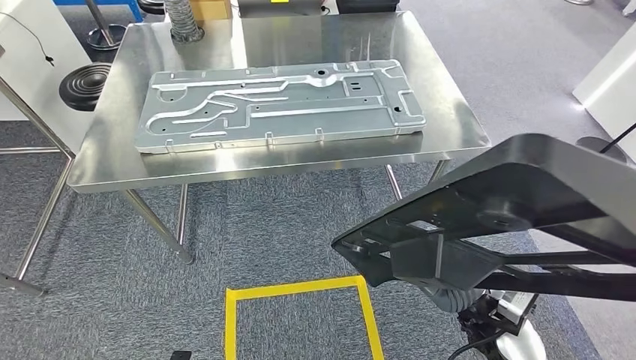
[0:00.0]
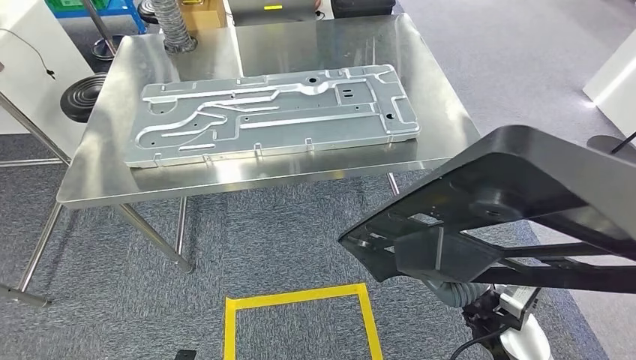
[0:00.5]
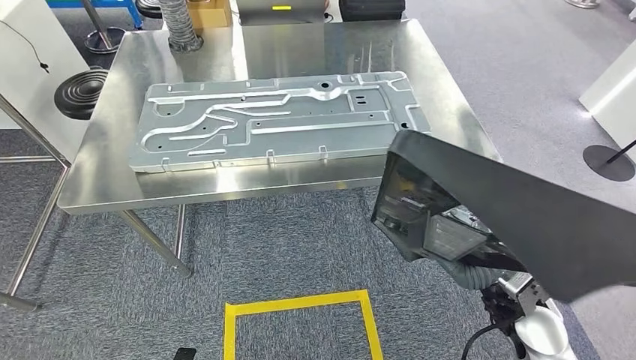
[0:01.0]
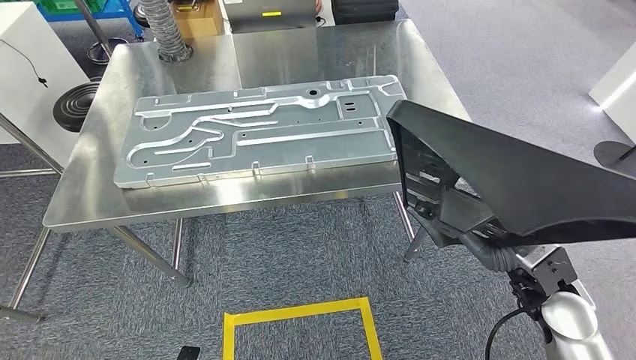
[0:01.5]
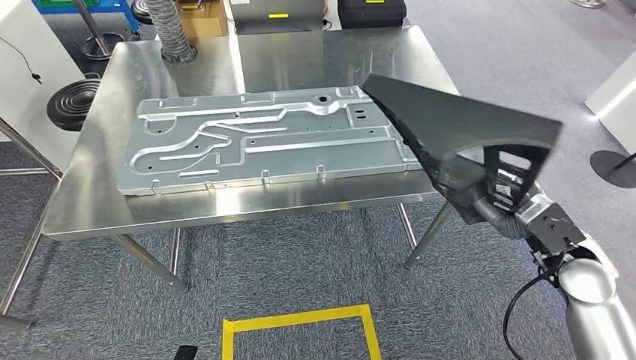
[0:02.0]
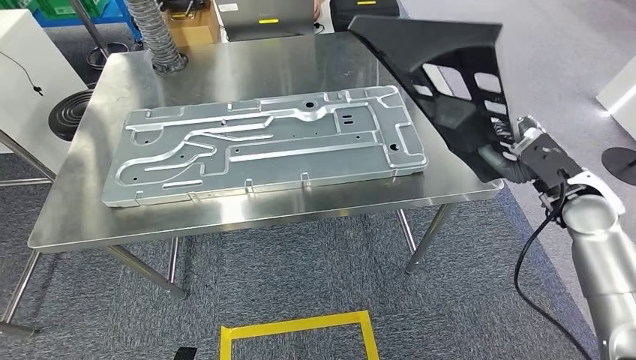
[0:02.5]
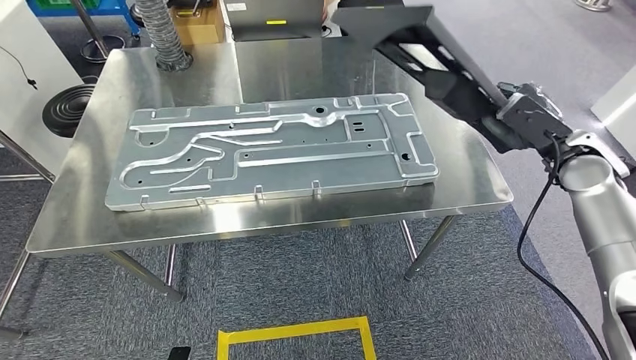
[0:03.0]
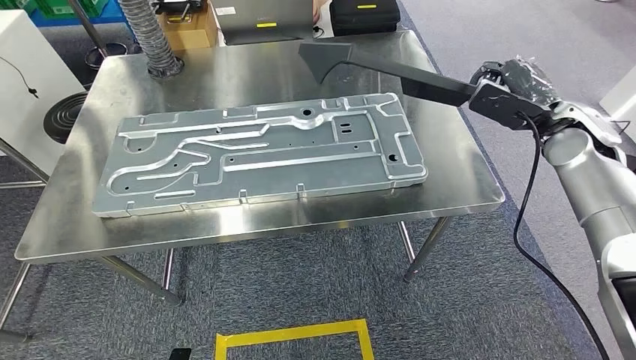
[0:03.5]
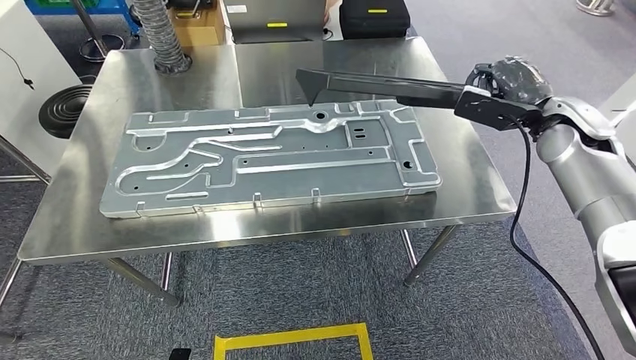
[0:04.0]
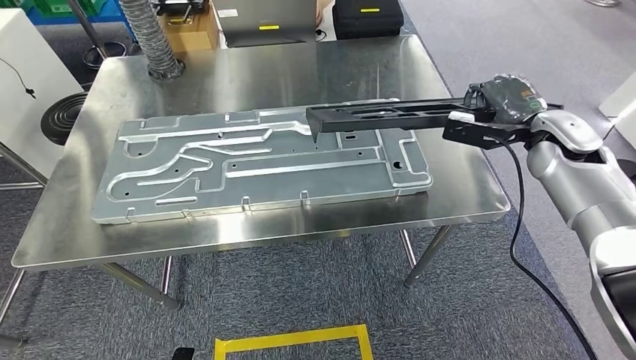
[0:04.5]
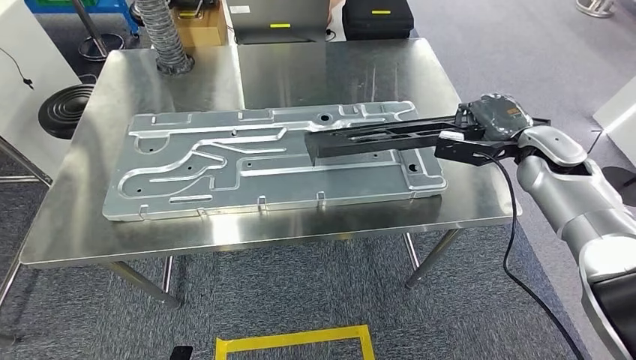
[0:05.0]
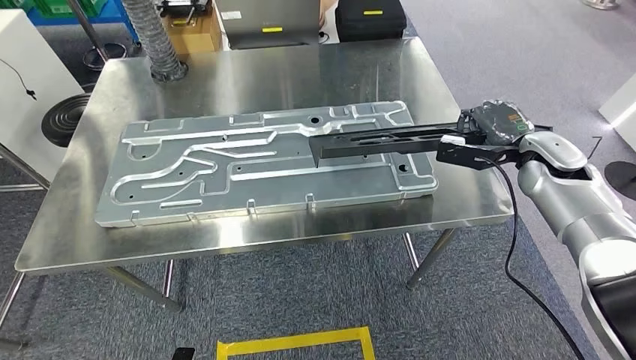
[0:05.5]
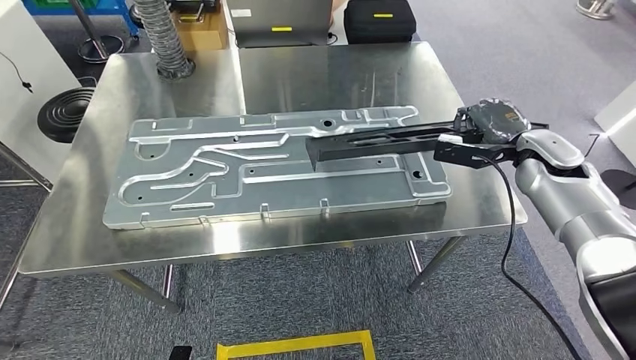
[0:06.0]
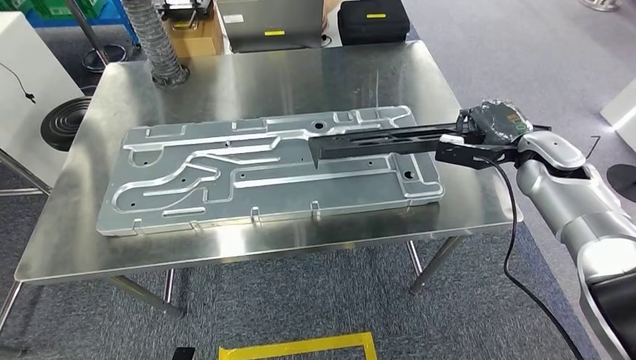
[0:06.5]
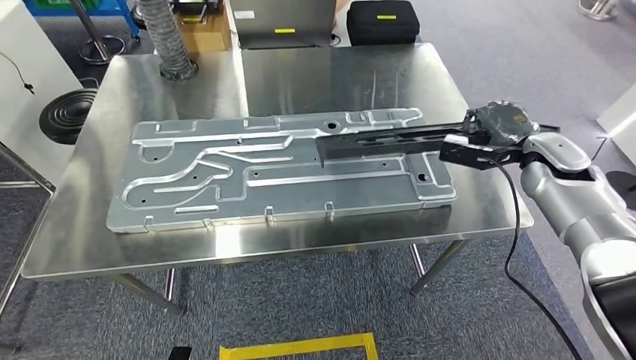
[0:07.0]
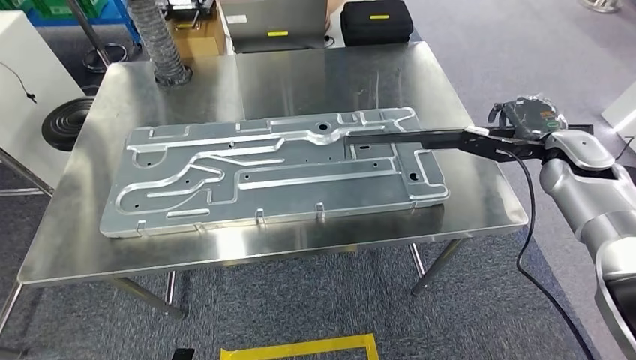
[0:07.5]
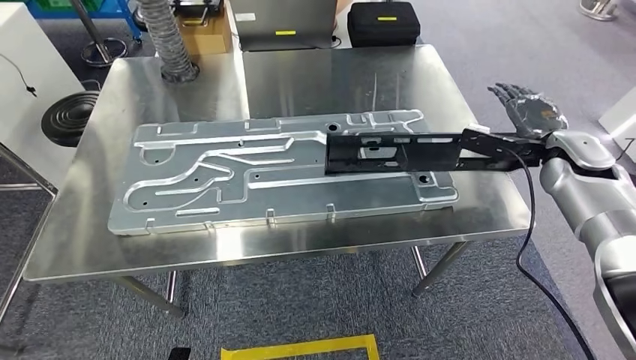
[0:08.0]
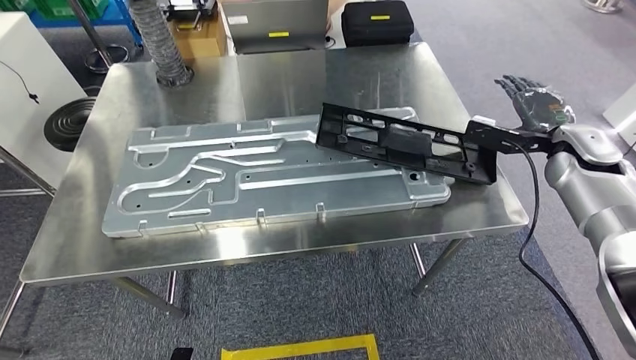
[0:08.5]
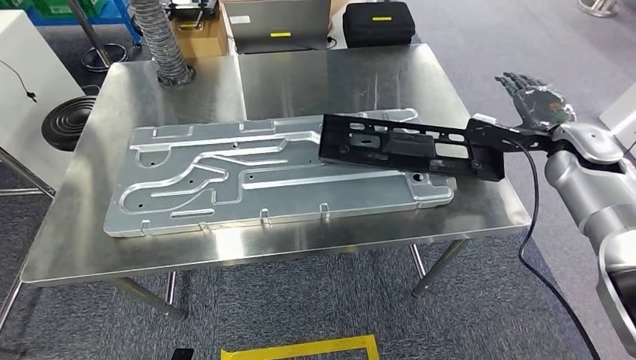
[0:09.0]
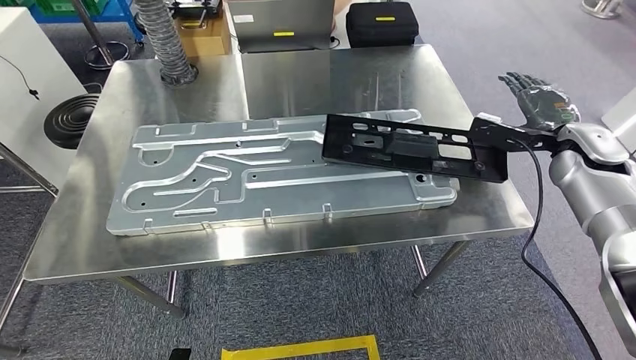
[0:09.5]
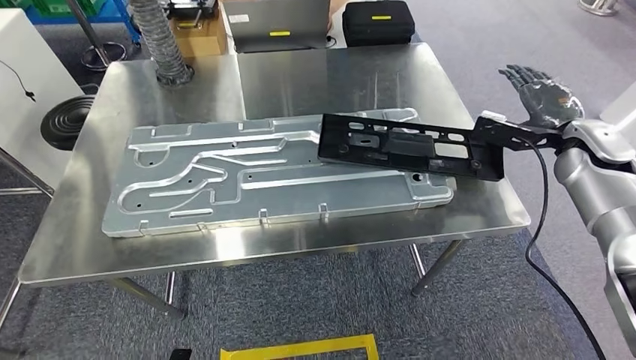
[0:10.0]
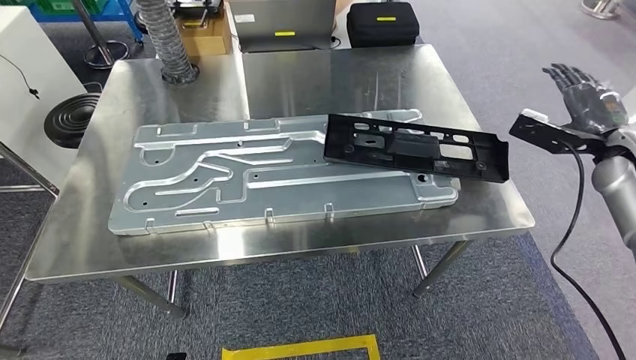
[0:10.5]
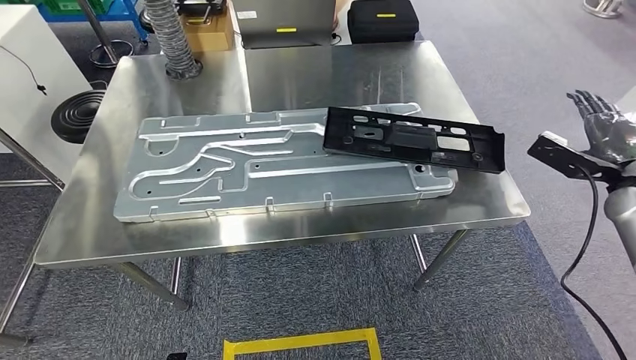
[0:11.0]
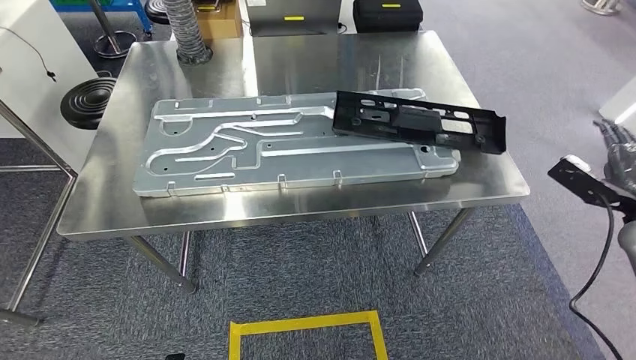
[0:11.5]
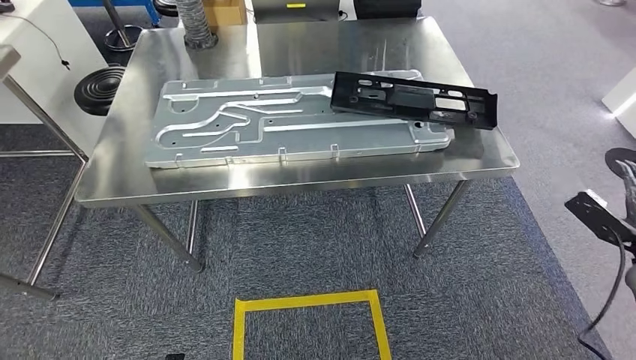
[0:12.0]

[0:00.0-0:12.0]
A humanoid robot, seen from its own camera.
Step, 0:02.0 to 0:10.5: Insert the large material into the corresponding slot on the workbench.

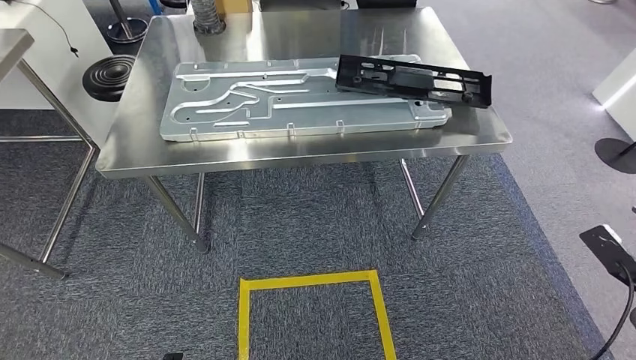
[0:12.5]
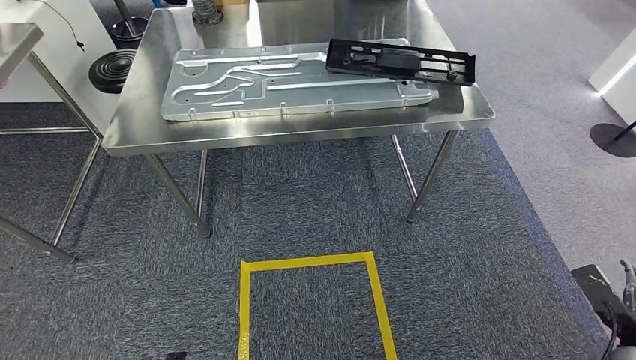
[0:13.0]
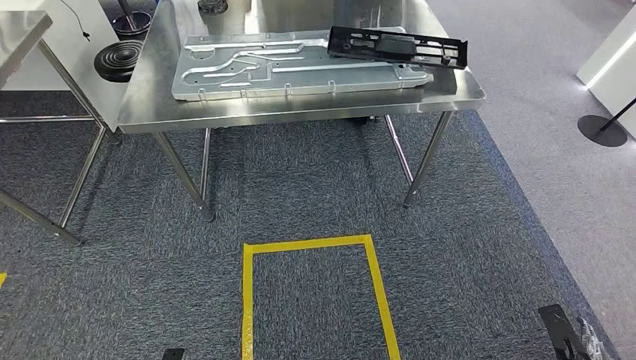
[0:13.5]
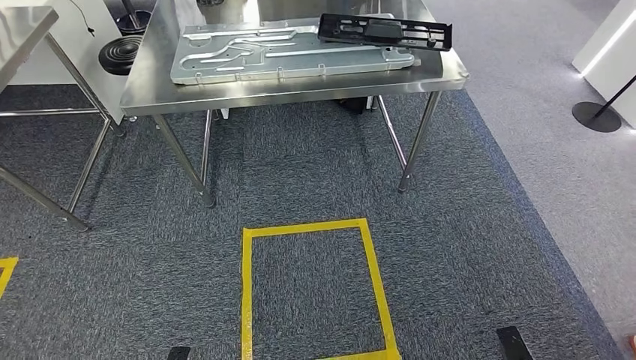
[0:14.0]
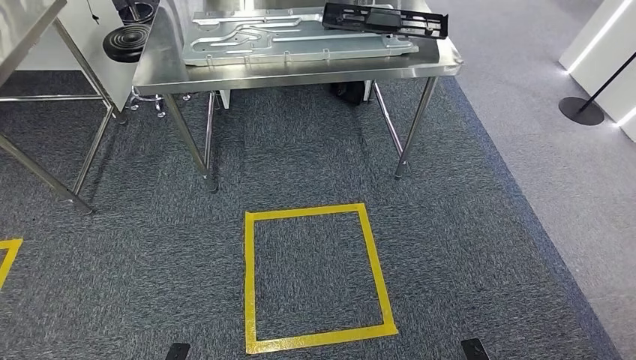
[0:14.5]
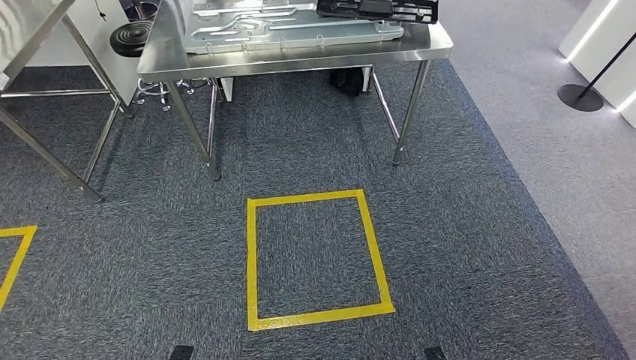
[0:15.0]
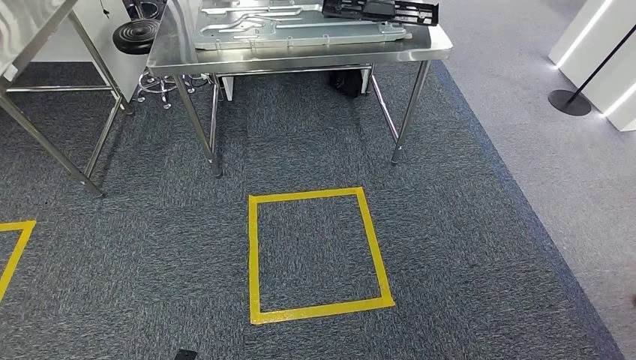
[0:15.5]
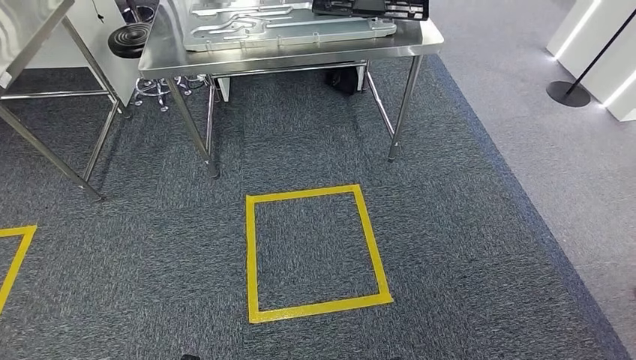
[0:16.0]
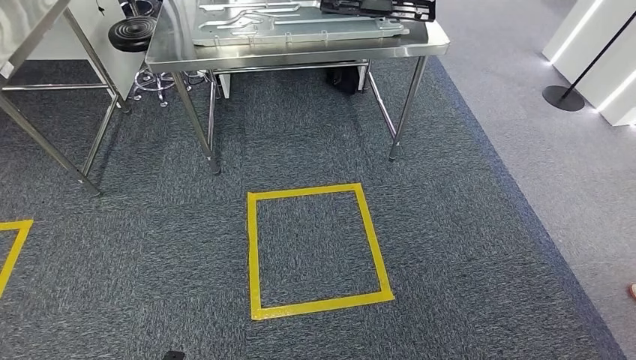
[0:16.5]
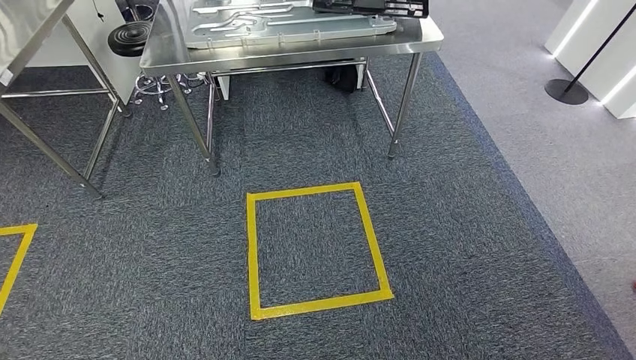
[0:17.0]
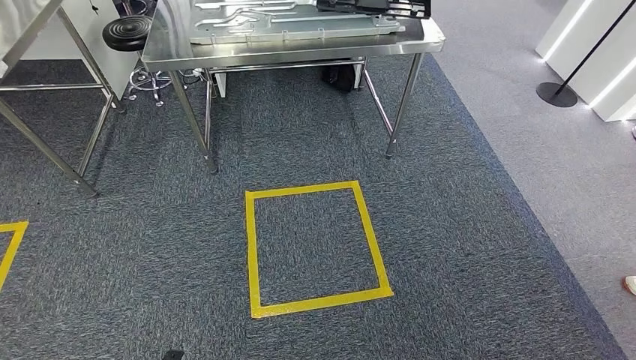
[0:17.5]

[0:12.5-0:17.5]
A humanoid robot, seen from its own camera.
Step, 0:12.5 to 0:17.5: Move to the initial position of the shelf.
0:15.0 to 0:17.5: The left hand travels to the left by approximately 5 cm, while the right hand shifts some 10 cm backward.
